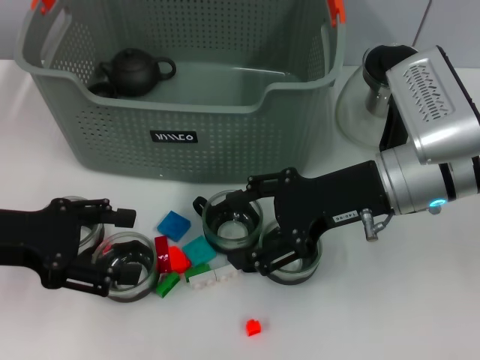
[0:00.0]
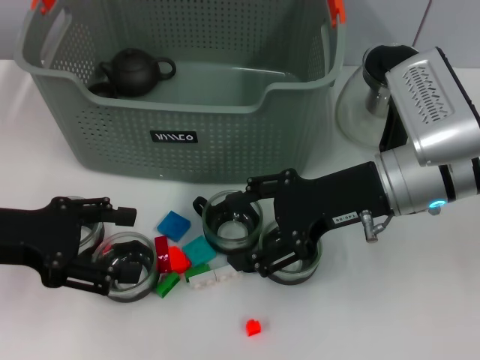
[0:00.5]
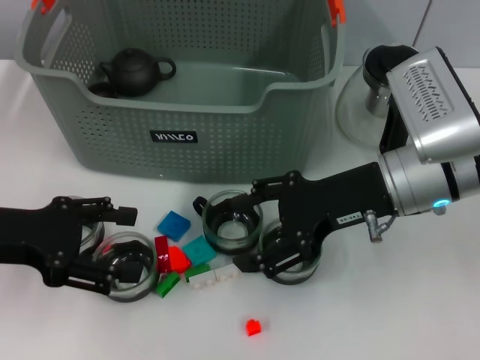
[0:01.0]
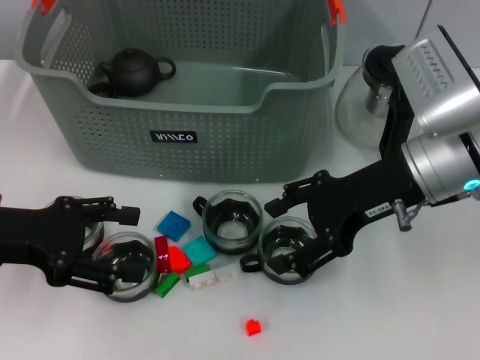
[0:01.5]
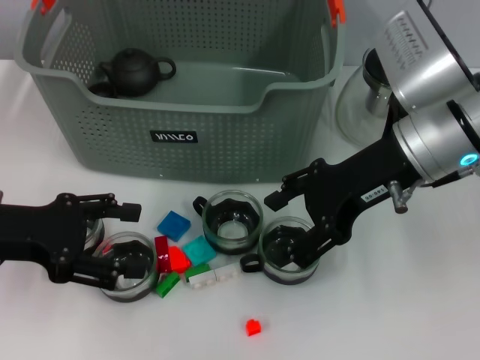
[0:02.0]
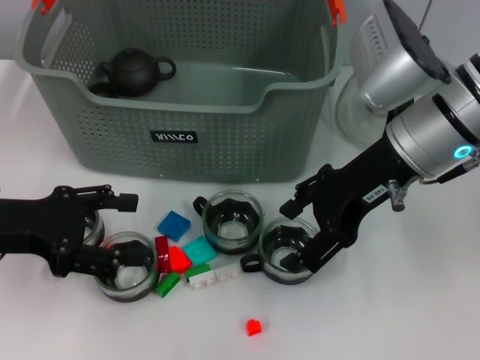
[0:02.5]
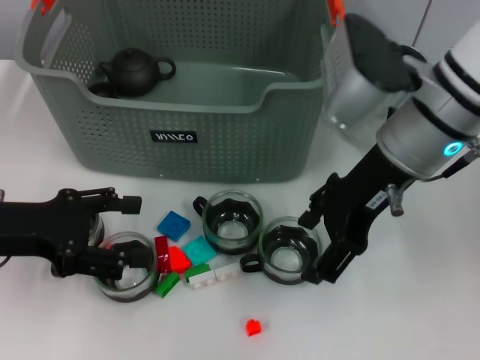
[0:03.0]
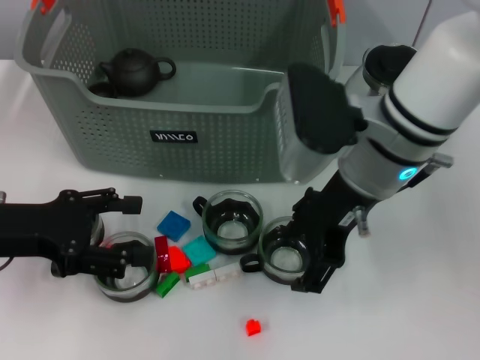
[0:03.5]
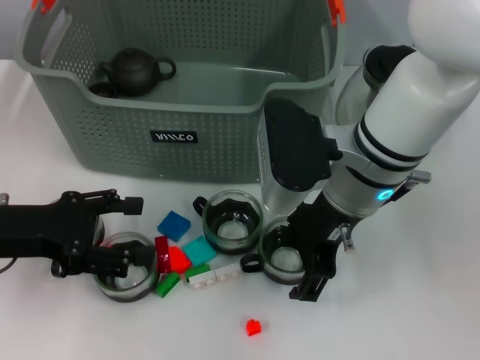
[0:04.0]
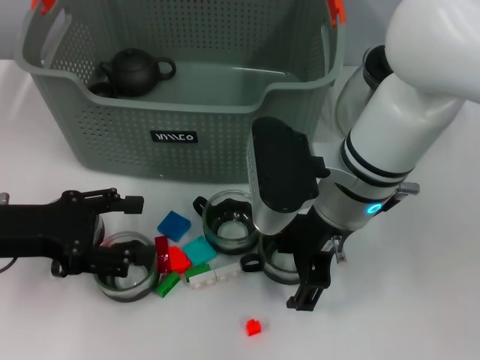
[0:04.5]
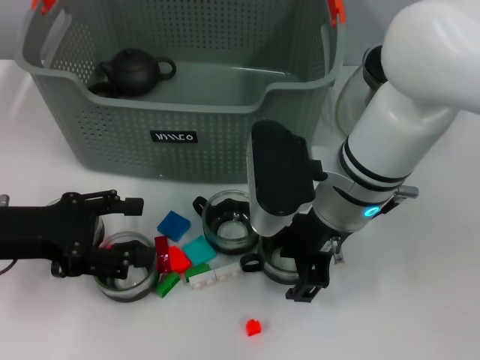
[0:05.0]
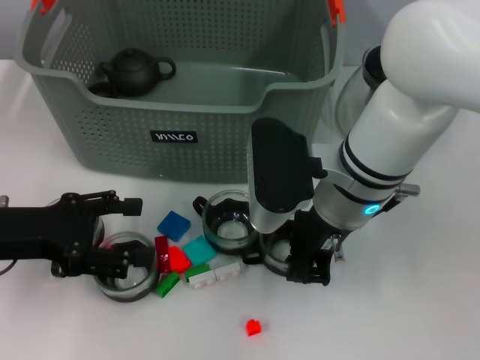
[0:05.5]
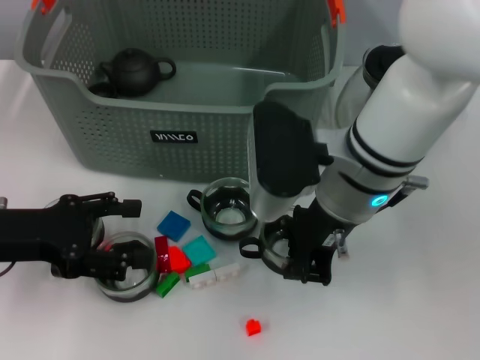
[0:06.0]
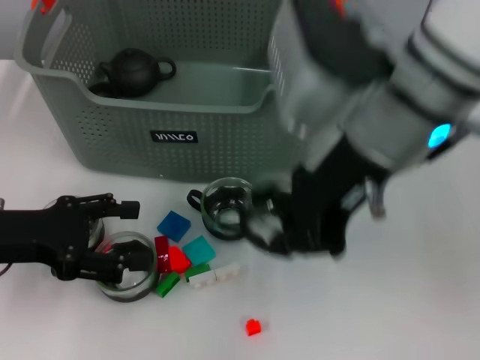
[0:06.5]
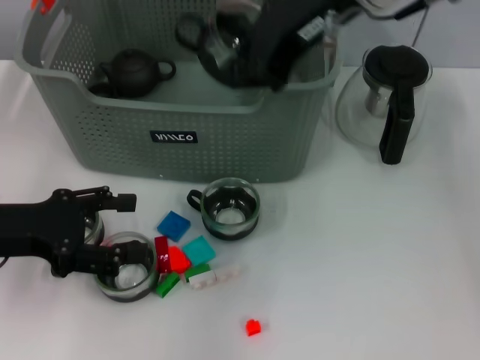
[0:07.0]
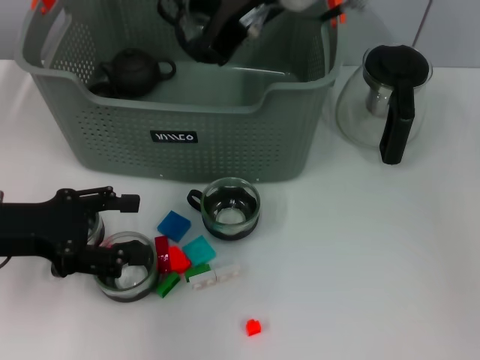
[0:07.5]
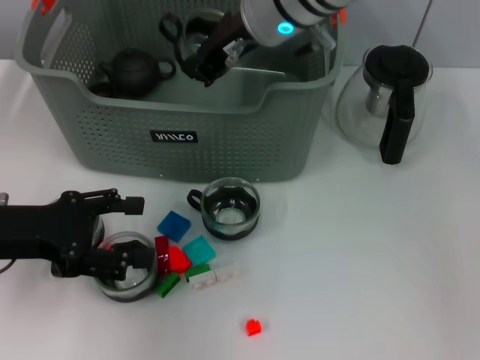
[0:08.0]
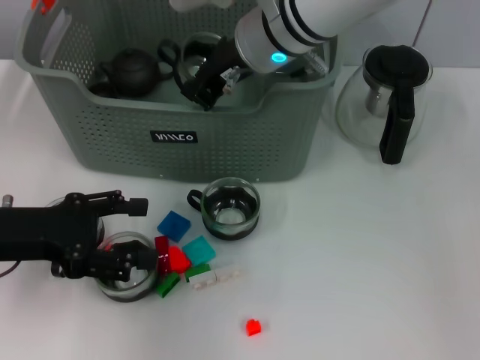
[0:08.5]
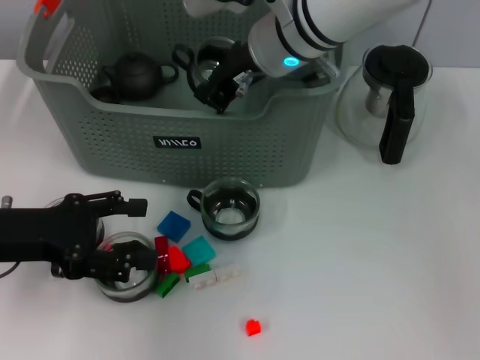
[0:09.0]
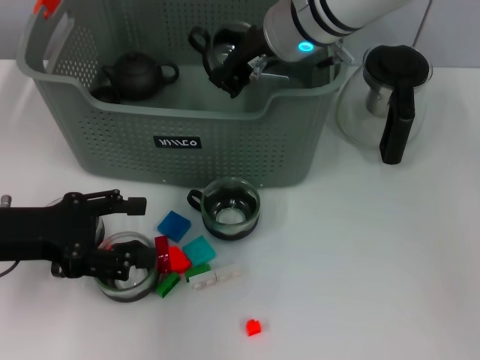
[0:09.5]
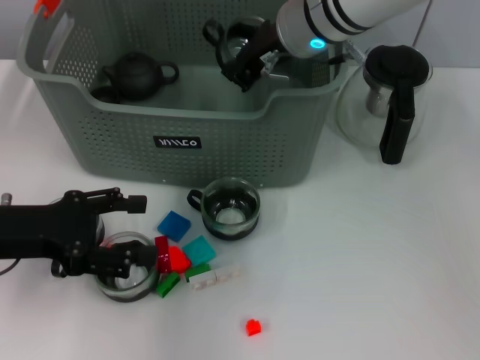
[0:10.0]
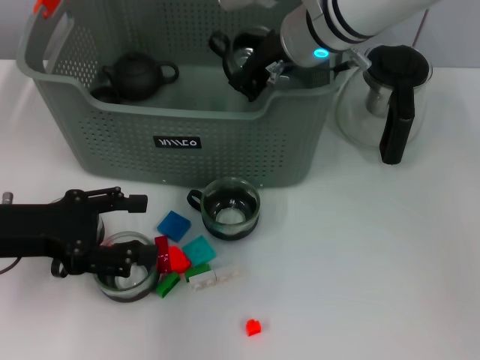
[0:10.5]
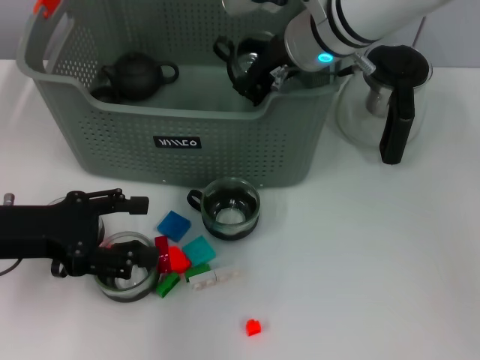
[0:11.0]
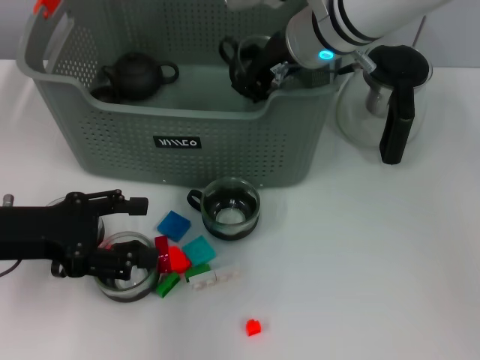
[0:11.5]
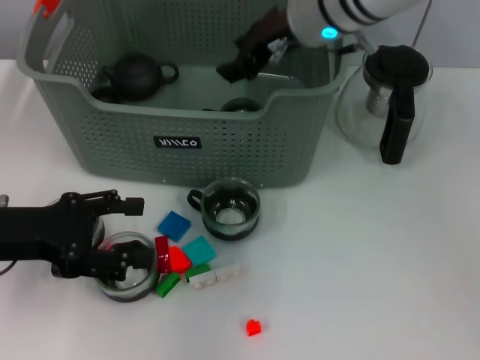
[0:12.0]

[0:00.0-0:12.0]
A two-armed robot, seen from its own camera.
Task of the whole recording: pick up the teacup on the table and place it into the storage bin, pick up the block on the table and place it into the storage bin.
Step, 0:00.0 to 0:06.0: Grasp the cup with right gripper.
Step, 0:06.5 to 0:12.0: Place the cup in the storage box with right gripper.
0:00.0 to 0:02.0: The right gripper shifts approximately 5 cm upward.
0:02.0 to 0:04.0: The right gripper moves to the left, approximately 5 cm.
0:04.0 to 0:06.0: The right gripper closes up.
0:06.0 to 0:08.0: The right gripper goes approximately 15 cm forward, upward and to the left.
0:08.0 to 0:10.0: The grippers stay close to where they were, moving slightly.
0:10.0 to 0:12.0: The right gripper opens.

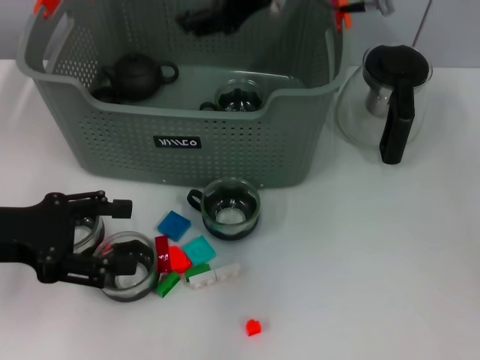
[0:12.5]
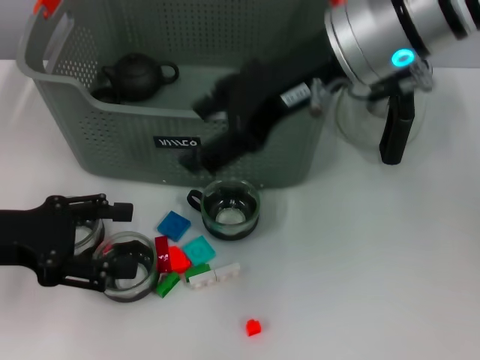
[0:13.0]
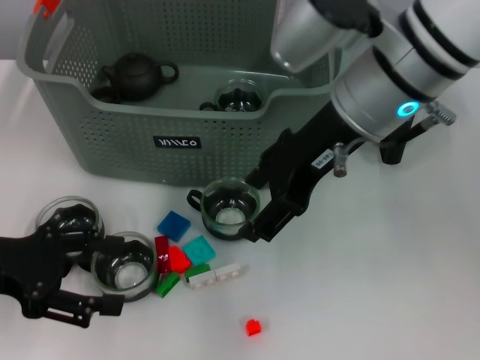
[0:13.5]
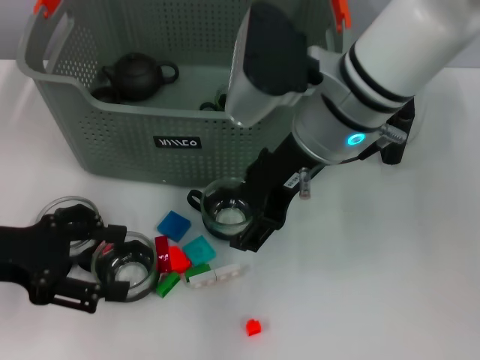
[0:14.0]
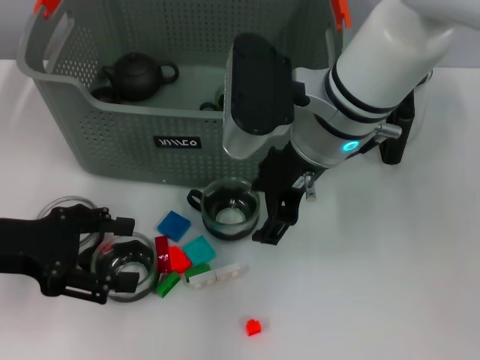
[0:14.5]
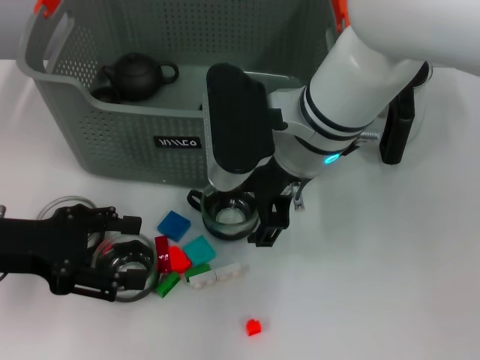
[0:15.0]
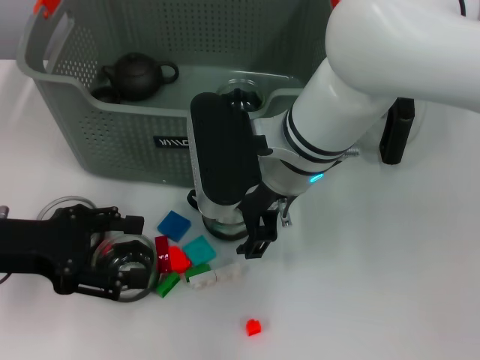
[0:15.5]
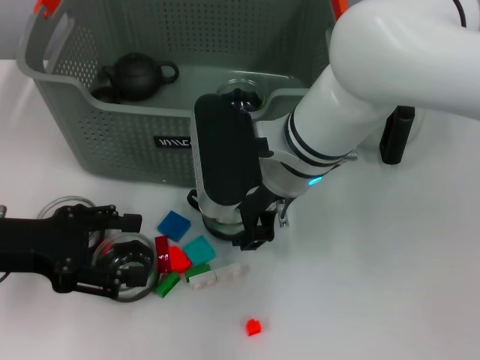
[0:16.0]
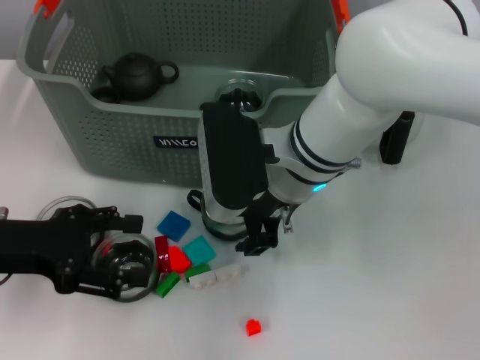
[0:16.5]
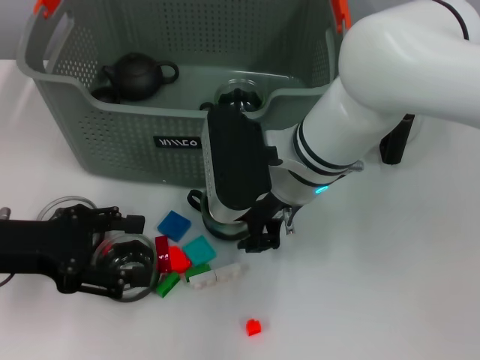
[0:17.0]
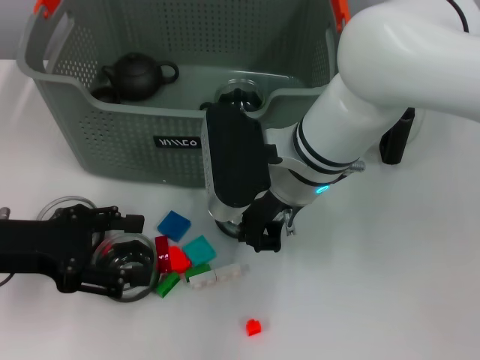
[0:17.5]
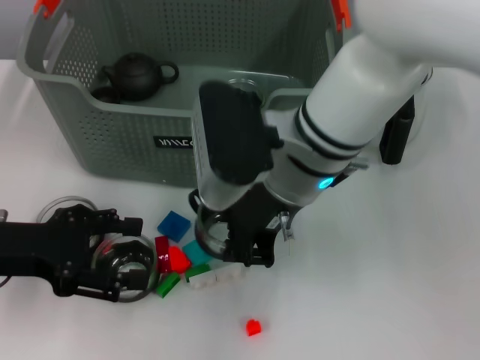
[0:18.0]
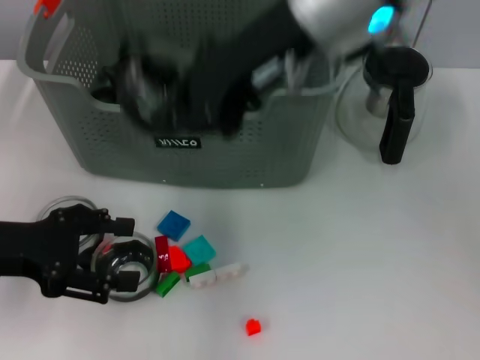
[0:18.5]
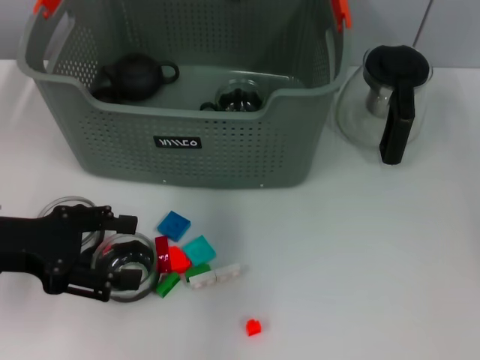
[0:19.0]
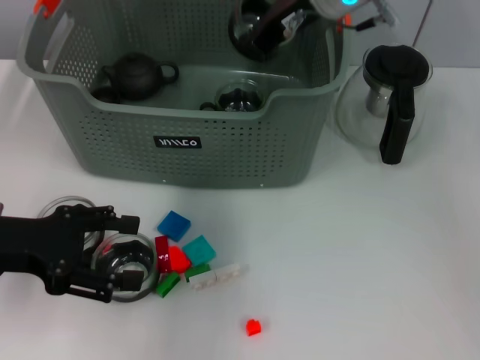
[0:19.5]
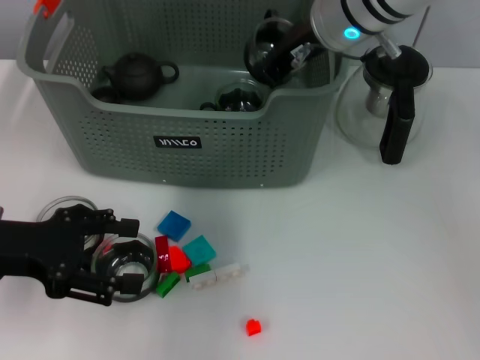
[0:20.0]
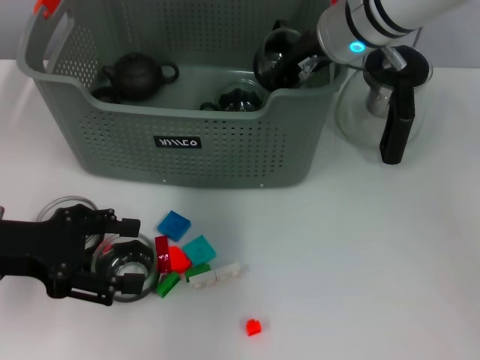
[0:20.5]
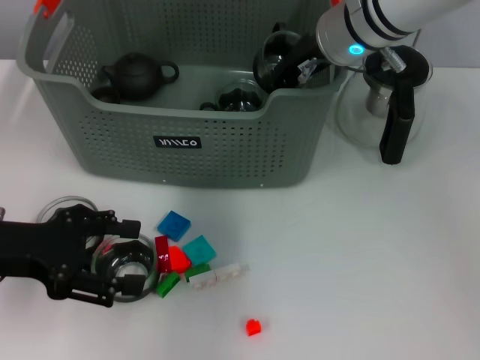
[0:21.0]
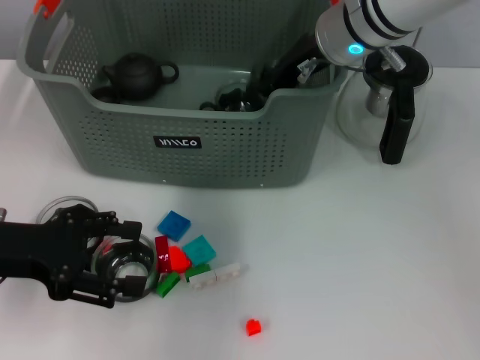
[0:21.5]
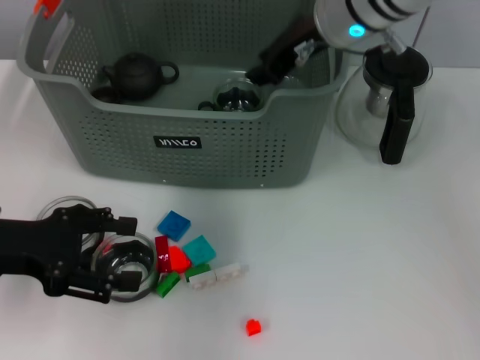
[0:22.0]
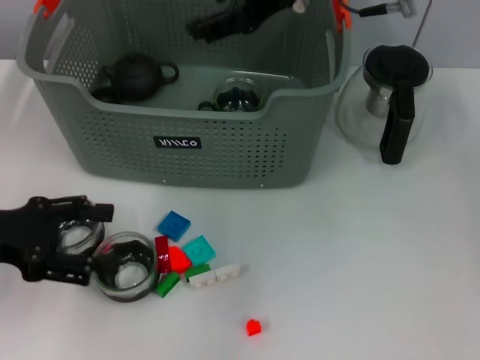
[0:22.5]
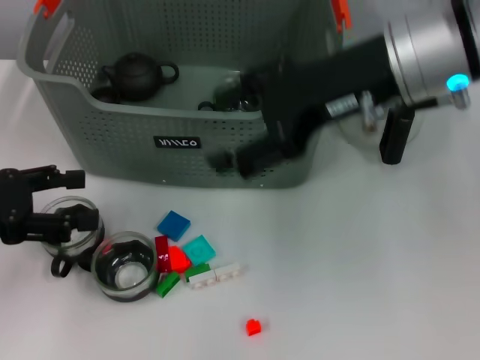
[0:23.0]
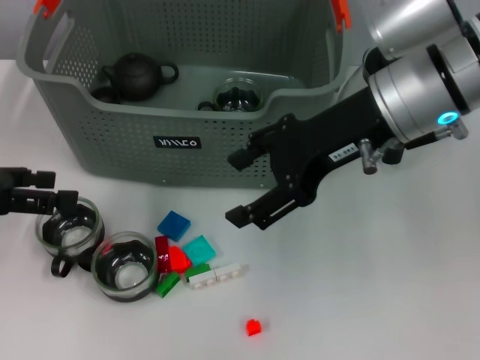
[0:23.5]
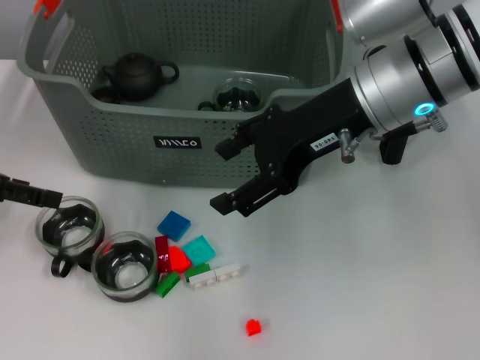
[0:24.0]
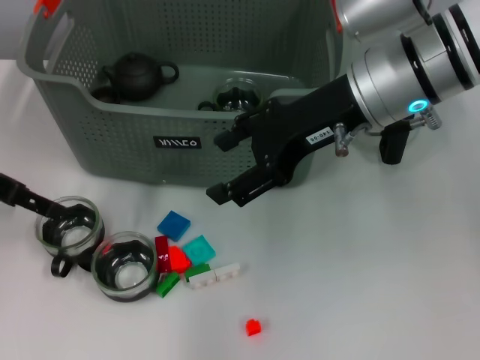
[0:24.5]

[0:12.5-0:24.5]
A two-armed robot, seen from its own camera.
Task of the whole recording: pick up the teacup on the table and place it into the storage bin, pick up the block on the table and place it into the storage bin.
Step, 0:12.5 to 0:17.5: Grasp the cup with right gripper.
Step, 0:18.0 to 0:22.0: Place the cup in the storage box with right gripper.
0:12.5 to 0:14.5: The right gripper is displaced downward by some 10 cm.
0:14.5 to 0:16.5: The right gripper moves about 5 cm.
0:16.5 to 0:18.5: The right gripper shifts roughly 15 cm upward, and closes.
0:18.5 to 0:20.5: The right gripper heads downward and forward, covering some 15 cm.
0:20.5 to 0:22.5: The right gripper moves upward, about 10 cm, and opens.
0:22.5 to 0:24.5: The right gripper goes about 10 cm backward and downward, and opens its fingers; the left gripper travels forward by approximately 10 cm.

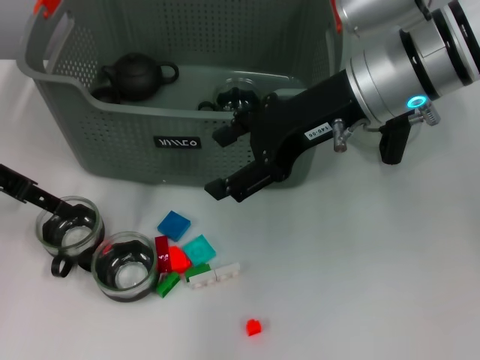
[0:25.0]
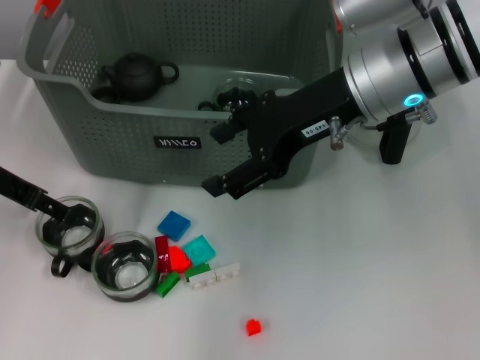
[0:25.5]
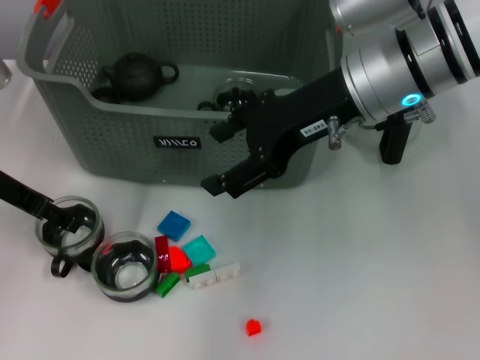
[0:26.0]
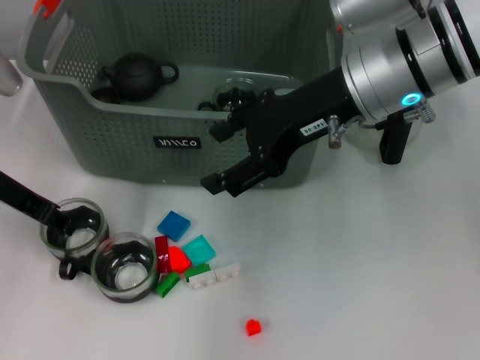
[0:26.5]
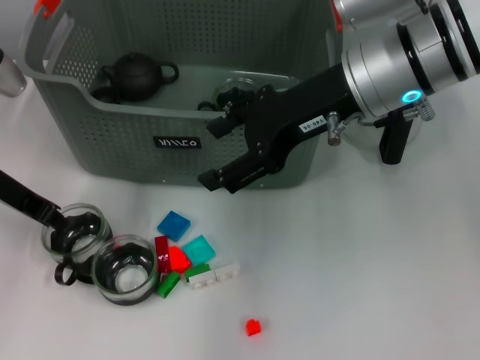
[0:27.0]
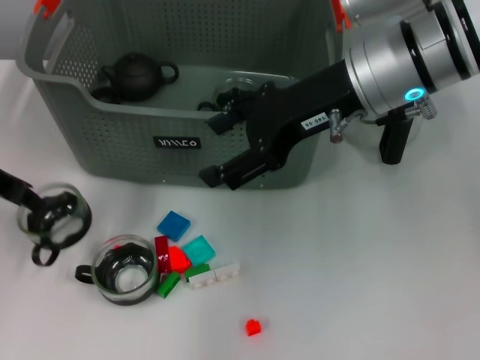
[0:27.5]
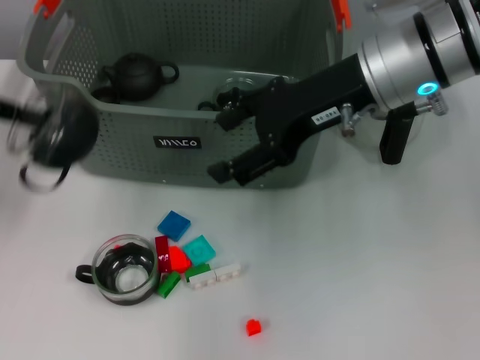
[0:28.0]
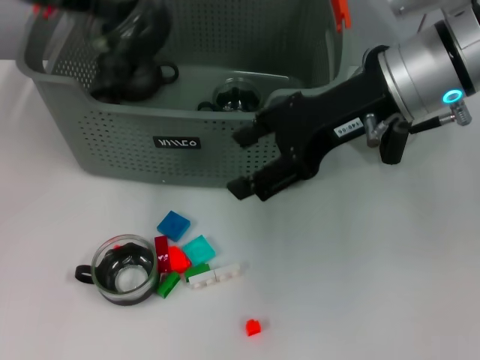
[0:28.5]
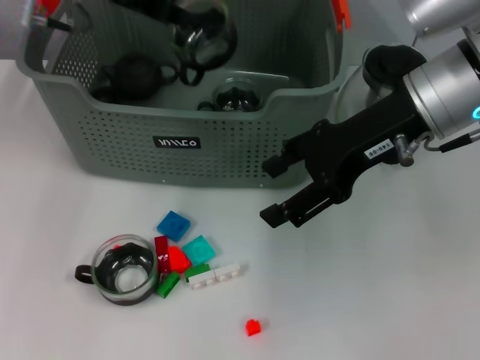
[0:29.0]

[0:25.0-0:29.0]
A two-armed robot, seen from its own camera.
Task of the whole recording: pick up the teacup on the table and place it into the storage bin, pick up the block on the table and place it into the storage bin.
Step, 0:25.0 to 0:27.0: Grasp the cup with left gripper.
0:25.0 to 0:27.0: The left gripper closes its fingers.
0:27.0 to 0:29.0: The left gripper shifts approximately 20 cm upward, forward and to the right.
